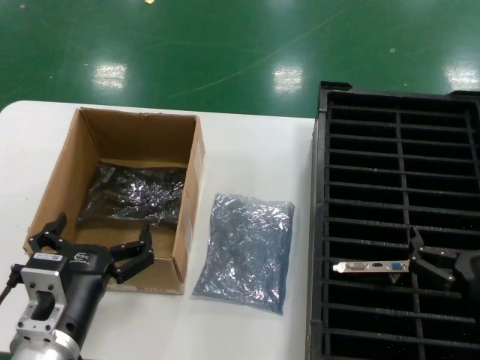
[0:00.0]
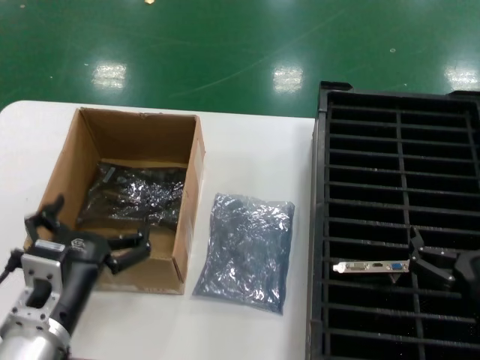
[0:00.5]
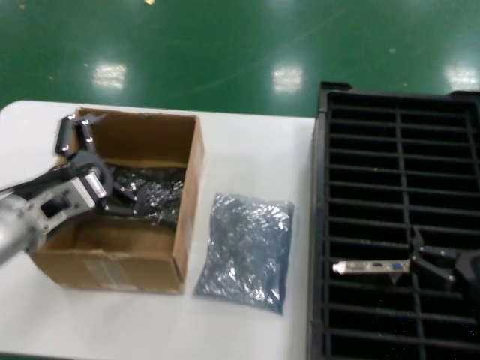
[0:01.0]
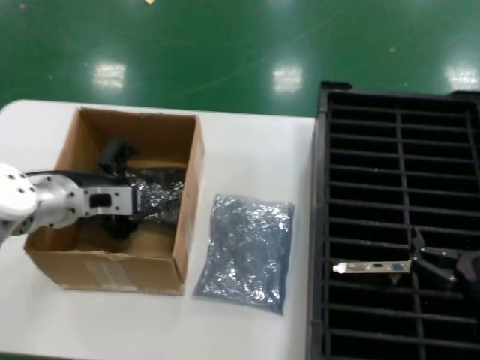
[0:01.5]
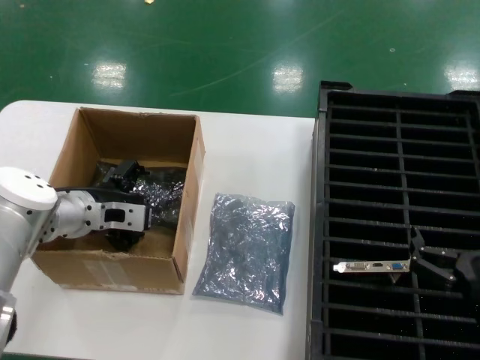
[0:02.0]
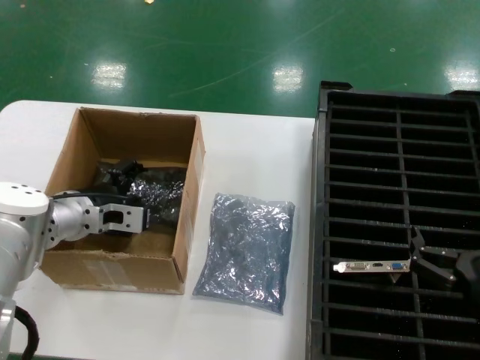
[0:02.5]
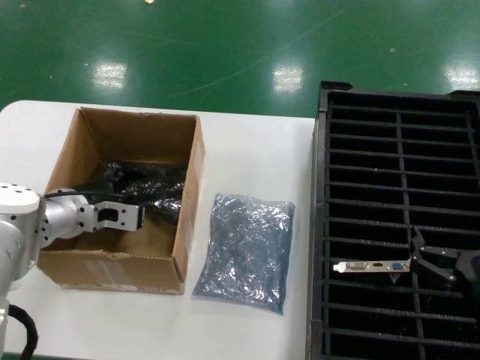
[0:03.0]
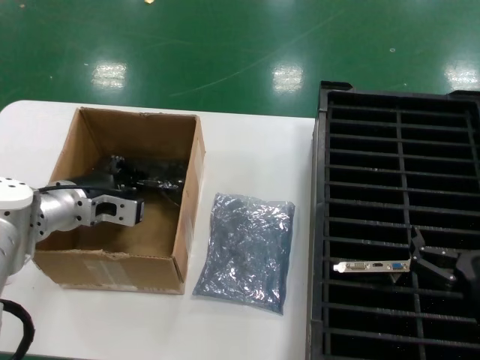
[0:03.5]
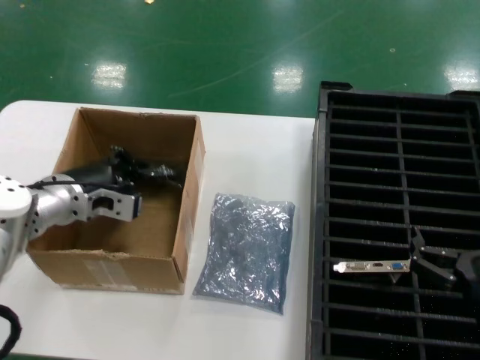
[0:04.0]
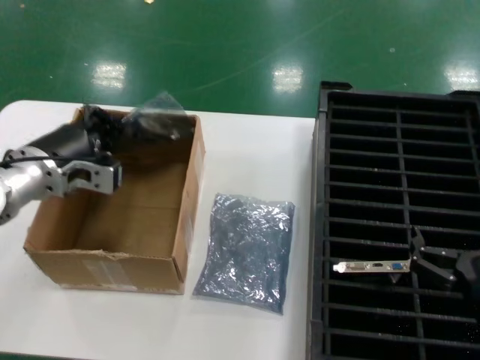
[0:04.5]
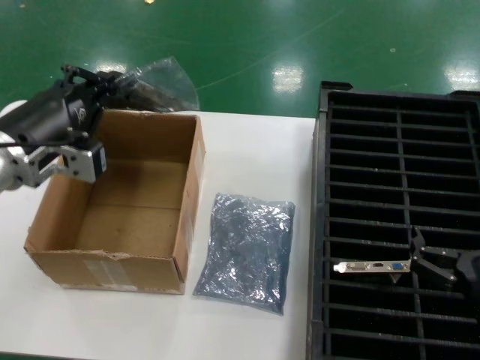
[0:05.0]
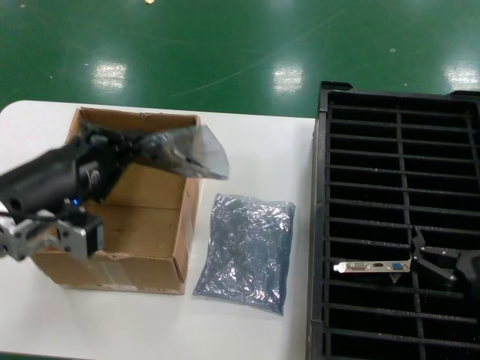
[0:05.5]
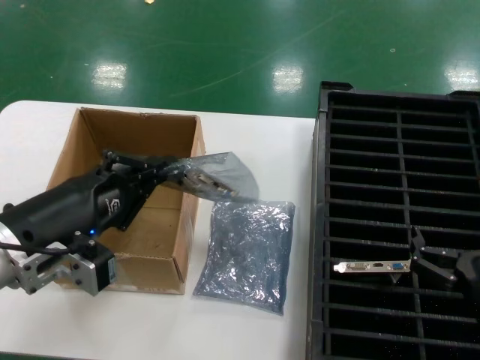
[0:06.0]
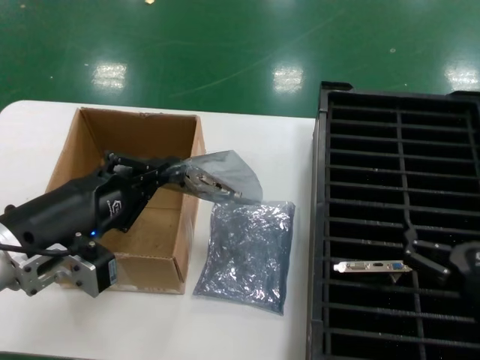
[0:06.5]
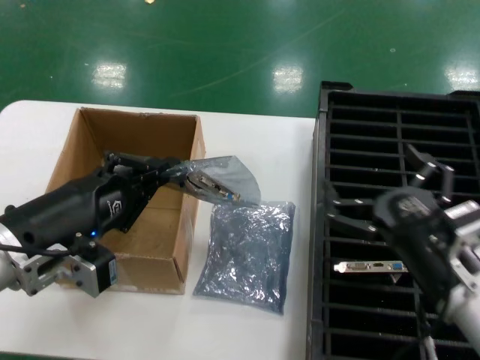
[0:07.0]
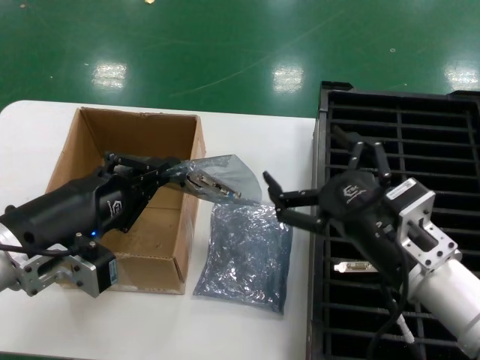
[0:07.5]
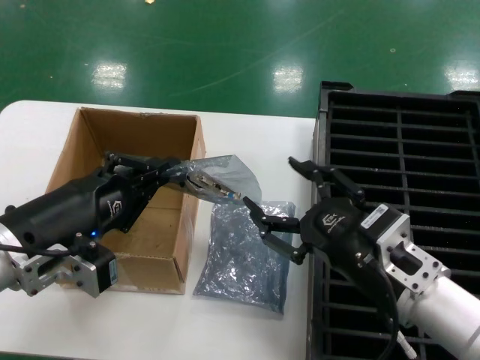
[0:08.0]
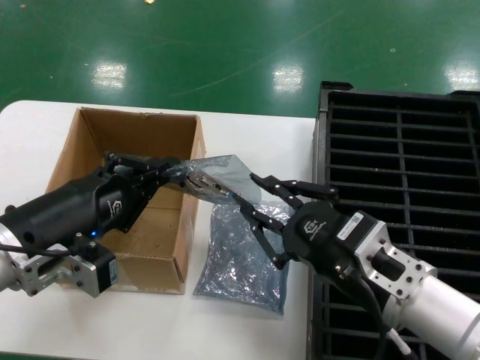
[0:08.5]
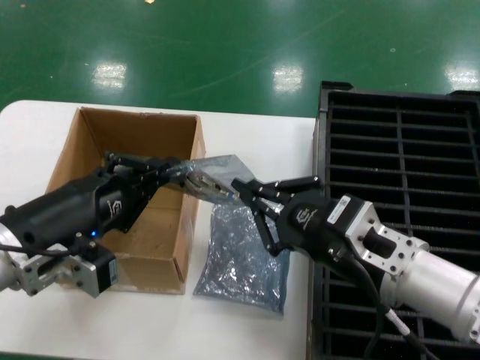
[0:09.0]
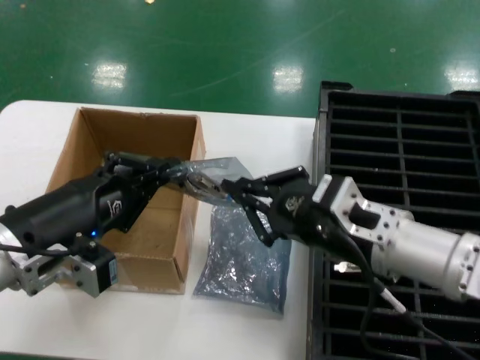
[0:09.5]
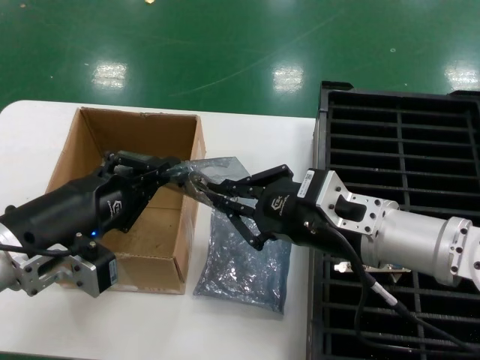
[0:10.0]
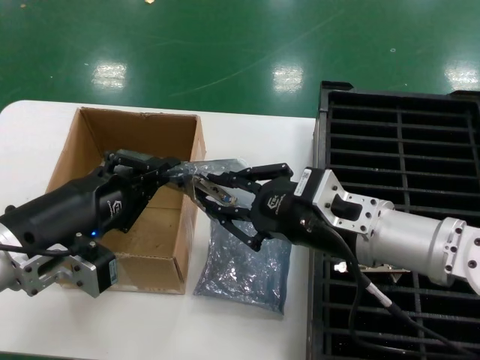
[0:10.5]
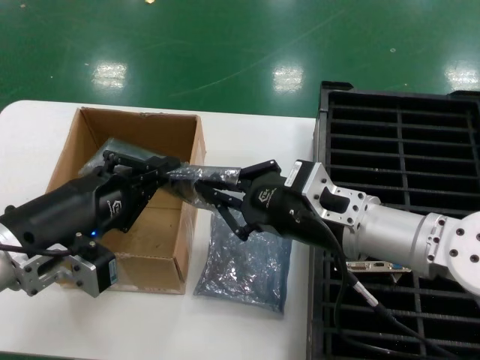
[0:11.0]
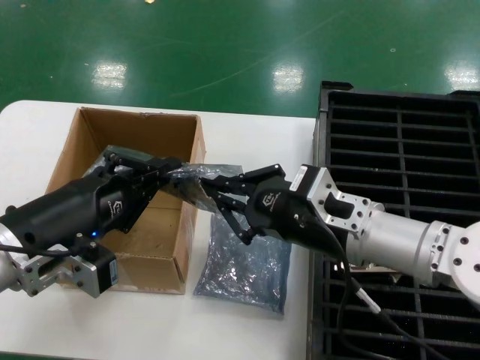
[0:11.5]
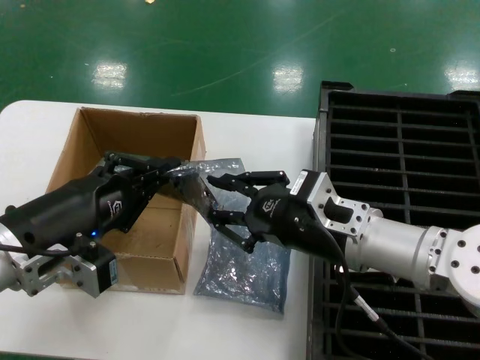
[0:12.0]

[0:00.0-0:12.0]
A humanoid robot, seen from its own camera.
Task of the whole recording: take out graphics card from box remove packaging put into black container.
Step, 0:00.0 to 0:03.0: Grasp the bag.
Step, 0:03.5 to 0:06.5: Lift the bag.
0:00.0 to 0:02.0: The left hand moves forward, about 25 cm.
0:02.0 to 0:04.0: The hands make only small movements.
0:04.0 to 0:06.0: The left hand goes approximately 20 cm backward.
0:06.0 to 0:08.0: The right hand is displaced to the left and upward by about 15 cm.
0:08.0 to 0:10.0: The right hand is displaced forward and upward by some 10 cm.
0:10.0 to 0:12.0: The hands move only a little.

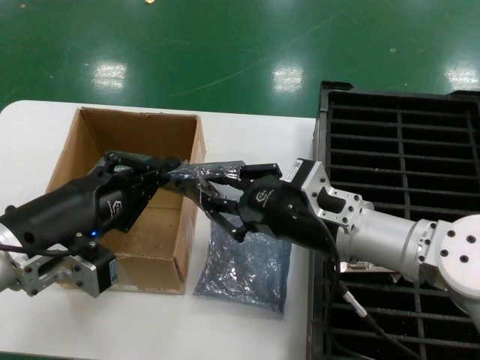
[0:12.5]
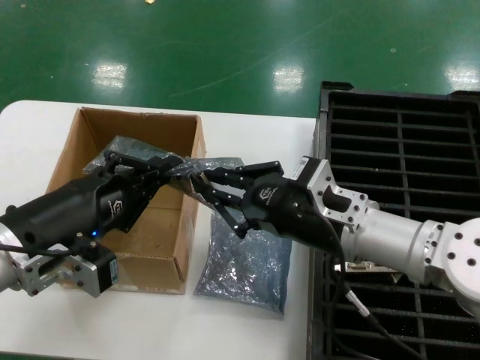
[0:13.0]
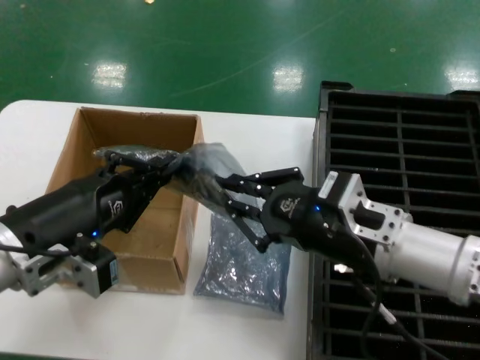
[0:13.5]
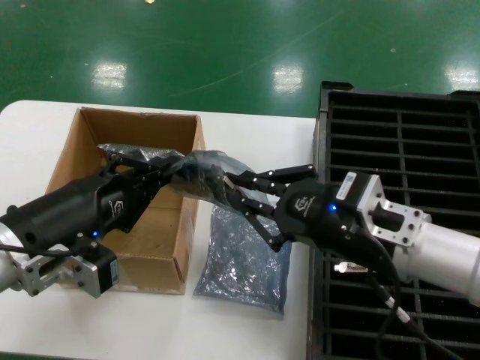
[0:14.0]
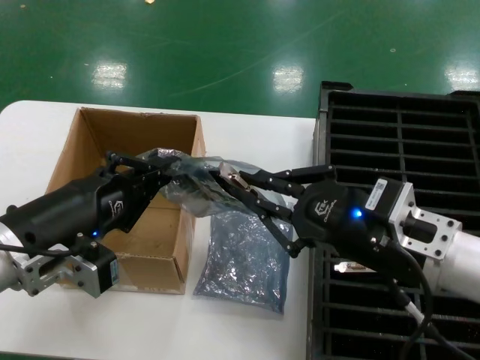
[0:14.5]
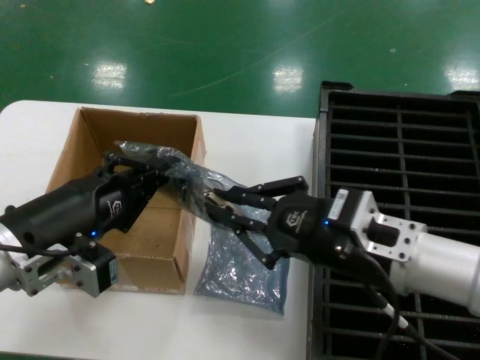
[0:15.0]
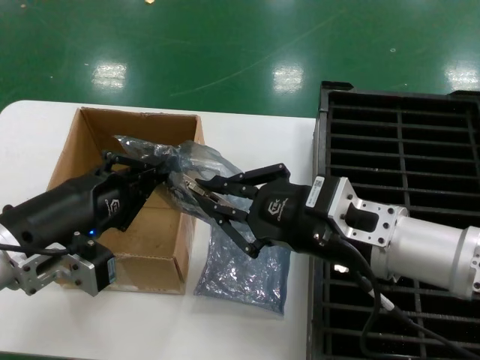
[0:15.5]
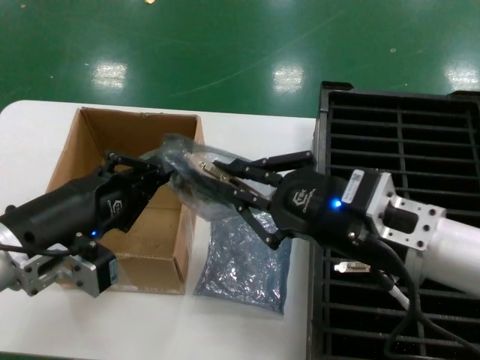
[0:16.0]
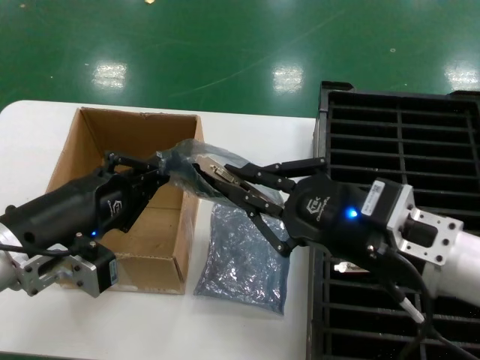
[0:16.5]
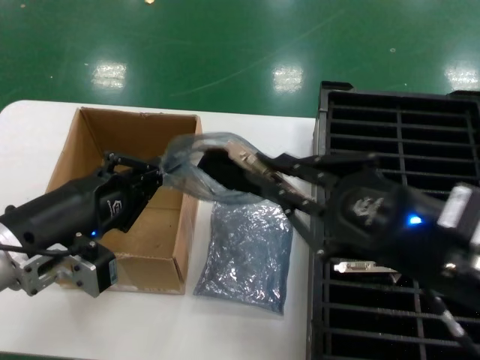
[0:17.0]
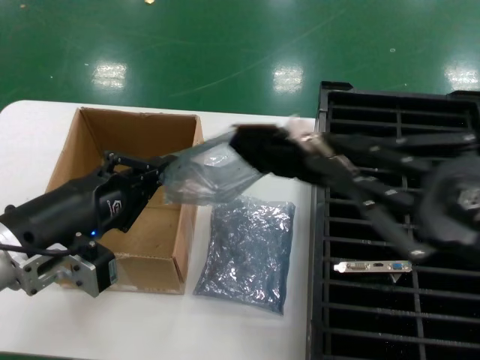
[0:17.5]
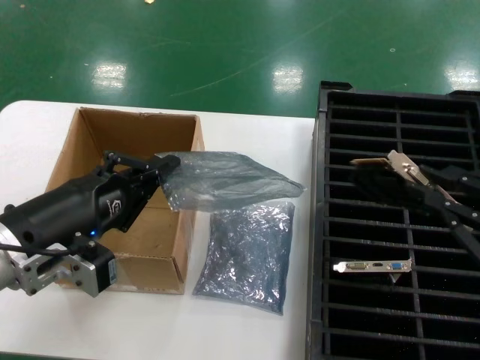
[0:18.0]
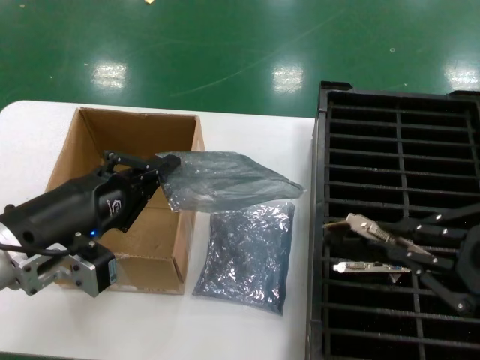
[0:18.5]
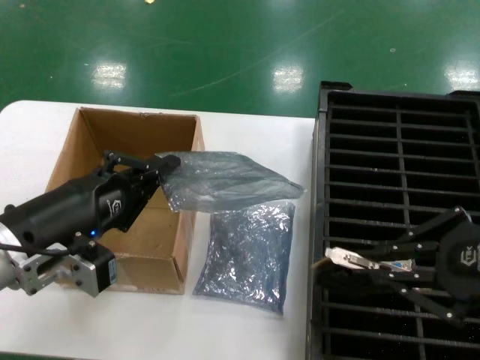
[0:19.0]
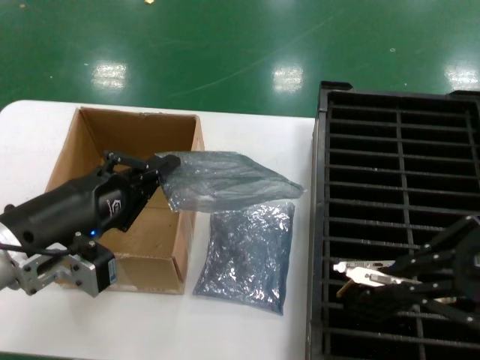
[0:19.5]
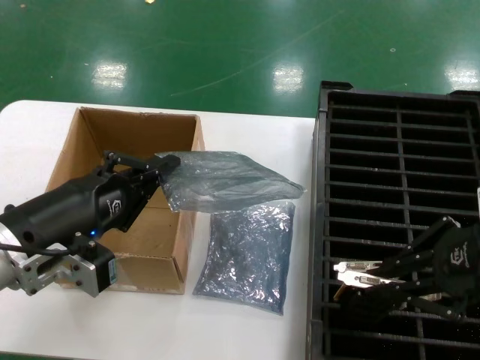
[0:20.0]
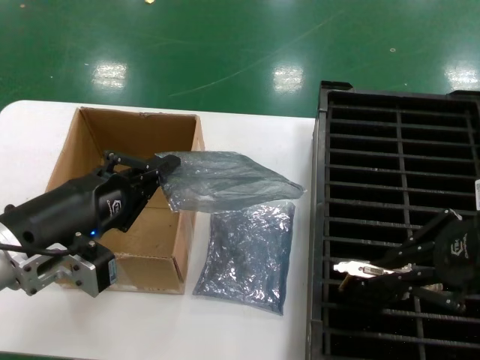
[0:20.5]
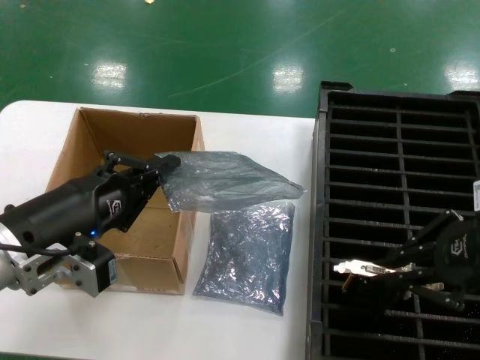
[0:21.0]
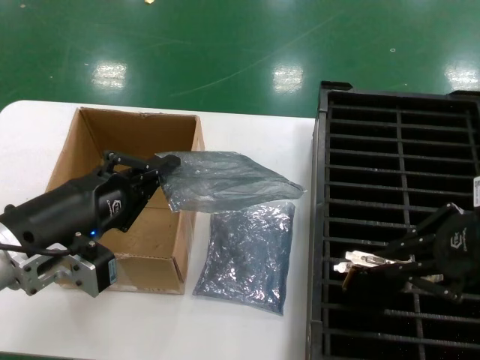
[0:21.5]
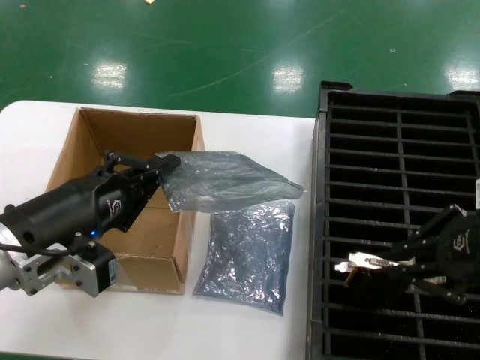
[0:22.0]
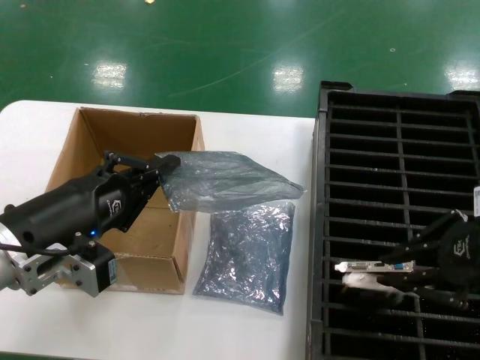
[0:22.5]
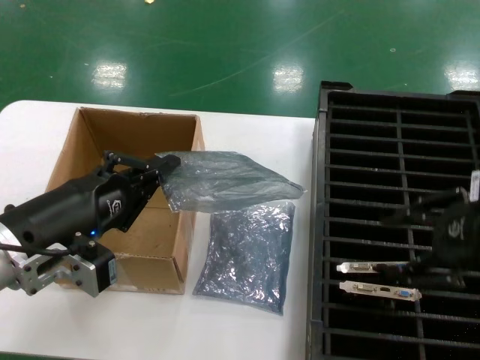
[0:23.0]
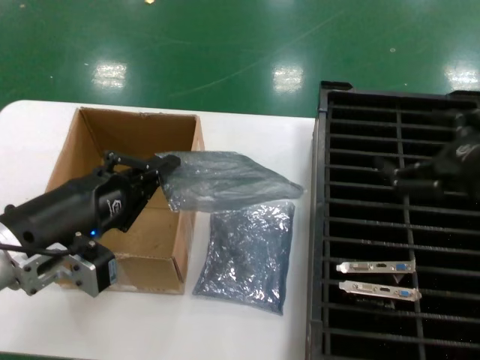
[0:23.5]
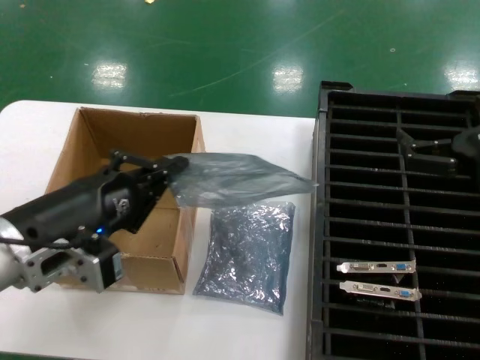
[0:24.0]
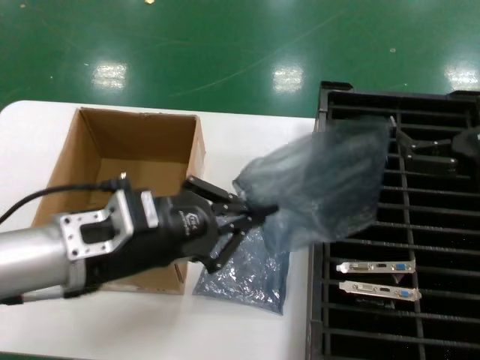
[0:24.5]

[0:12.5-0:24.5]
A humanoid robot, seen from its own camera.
Task of the whole recording: take out graphics card from box remove packaging put into black container.
Step, 0:12.5 to 0:17.5: Take out the hard disk of the bag.
Step, 0:18.0 to 0:23.0: Place the hard disk in the hard disk enclosure.
0:12.5 to 0:14.5: The right hand travels backward and to the right by roughly 10 cm.
0:14.5 to 0:16.5: The hands stay close to where they were, moving slightly.
0:16.5 to 0:18.5: The right hand goes about 15 cm to the right, backward and upward.
0:18.5 to 0:20.5: The right hand heads forward, covering about 10 cm.
0:20.5 to 0:22.5: The hands stay close to where they were, moving slightly.
0:22.5 to 0:24.5: The left hand shifts by about 5 cm, while the right hand moves downward, some 5 cm.

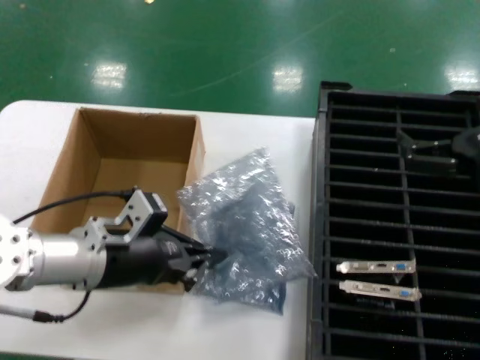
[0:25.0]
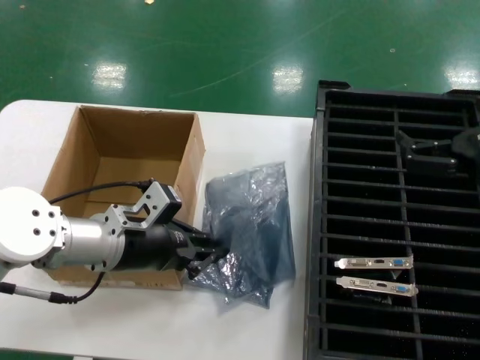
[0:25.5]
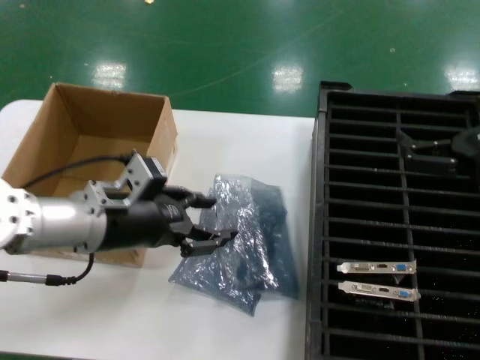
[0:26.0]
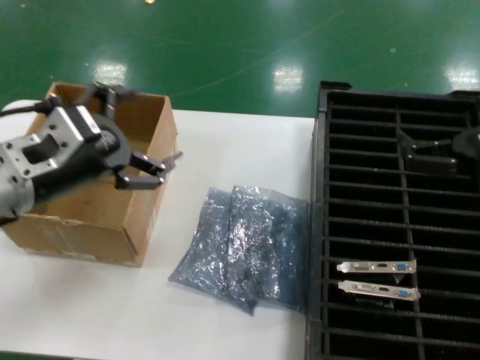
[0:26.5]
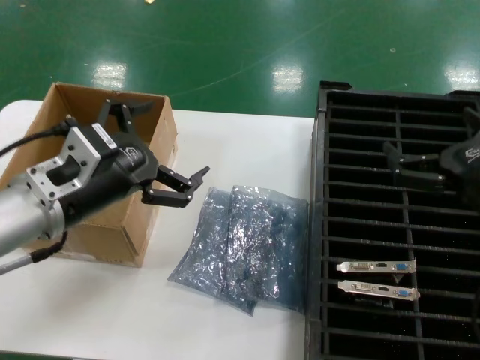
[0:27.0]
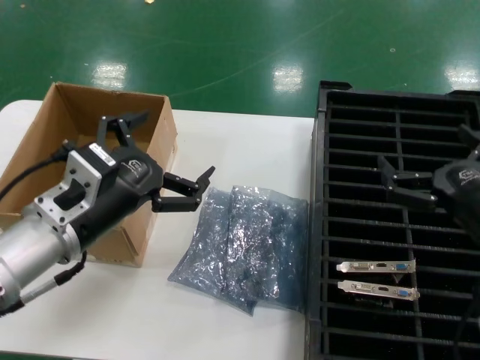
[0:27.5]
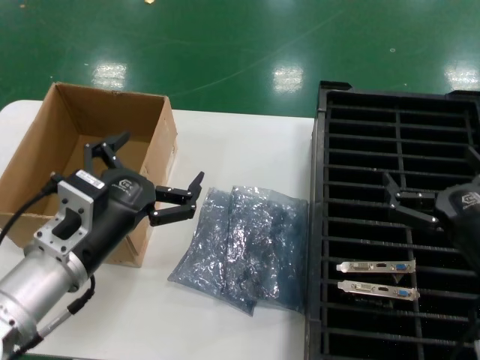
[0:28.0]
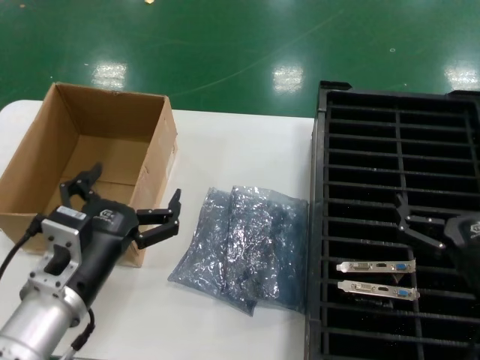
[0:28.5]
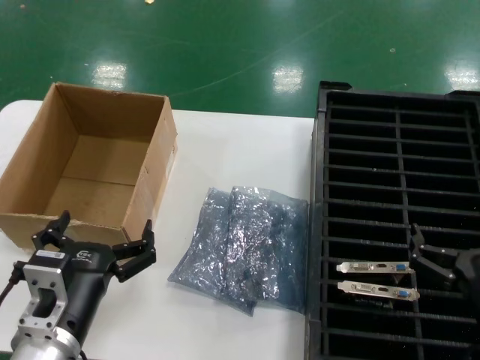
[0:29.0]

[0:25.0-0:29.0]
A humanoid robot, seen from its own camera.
Task of the whole recording: take out graphics card from box remove packaging put into black container.
0:25.0 to 0:27.0: The left hand goes about 5 cm upward.
0:27.0 to 0:29.0: The hands both shift downward and backward by some 15 cm.
